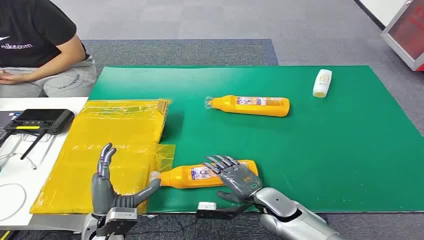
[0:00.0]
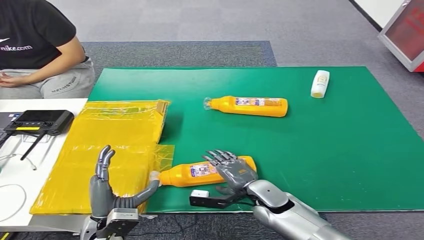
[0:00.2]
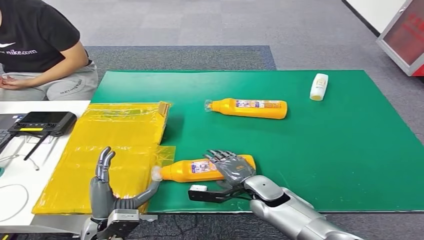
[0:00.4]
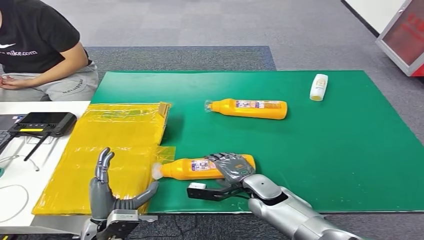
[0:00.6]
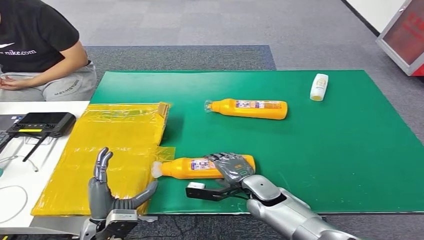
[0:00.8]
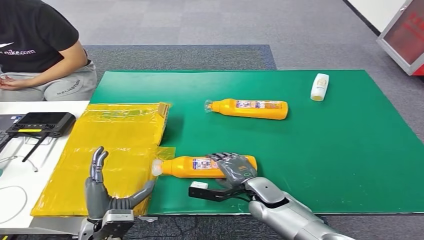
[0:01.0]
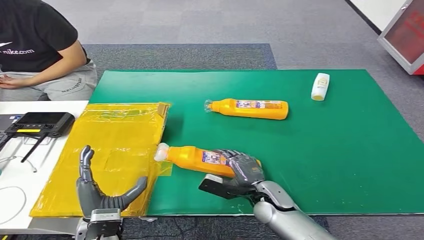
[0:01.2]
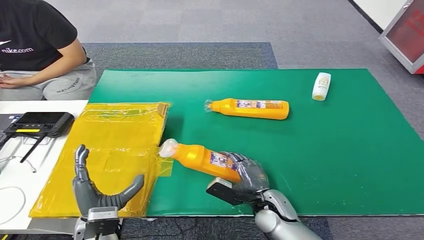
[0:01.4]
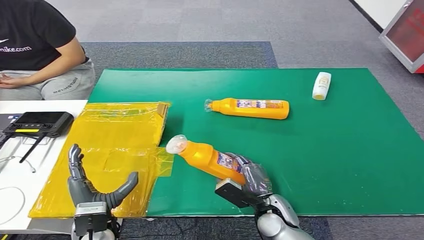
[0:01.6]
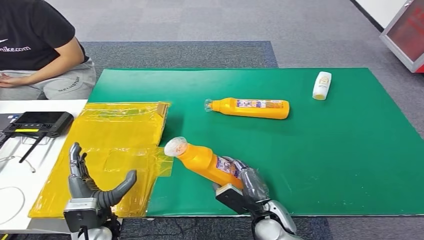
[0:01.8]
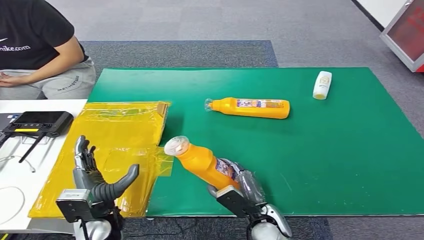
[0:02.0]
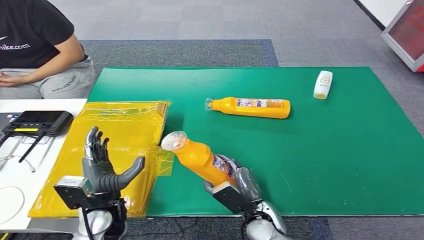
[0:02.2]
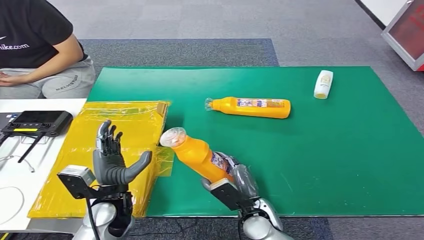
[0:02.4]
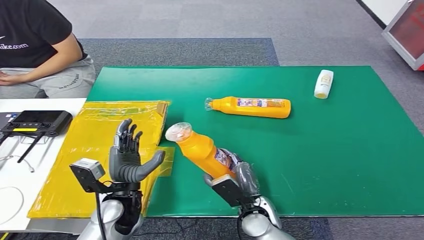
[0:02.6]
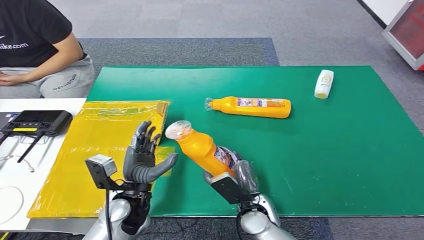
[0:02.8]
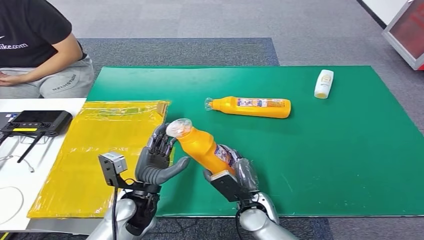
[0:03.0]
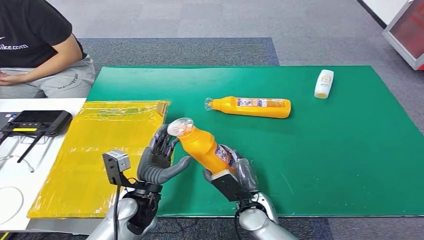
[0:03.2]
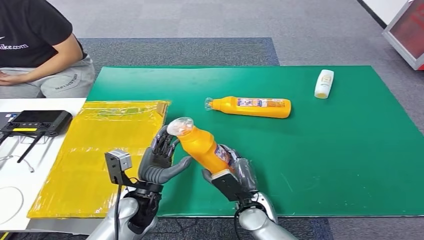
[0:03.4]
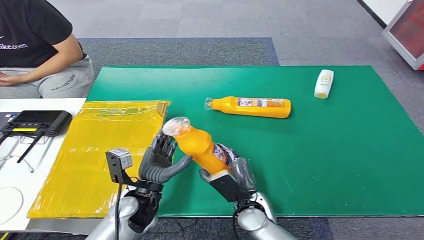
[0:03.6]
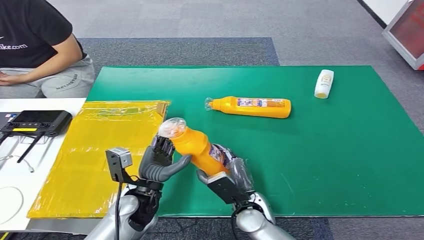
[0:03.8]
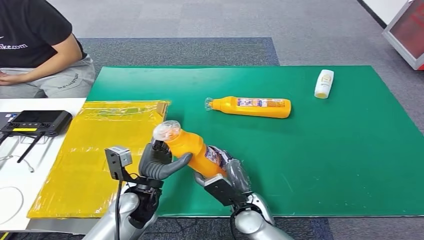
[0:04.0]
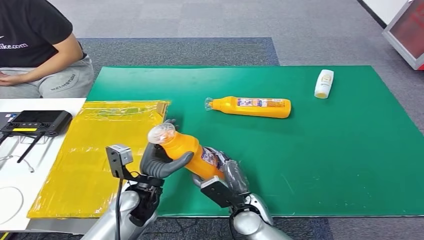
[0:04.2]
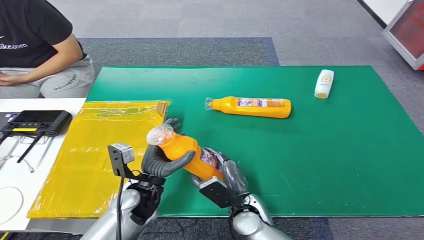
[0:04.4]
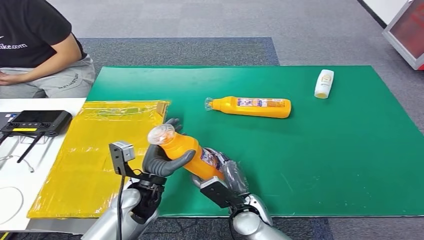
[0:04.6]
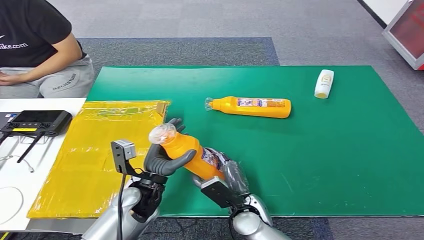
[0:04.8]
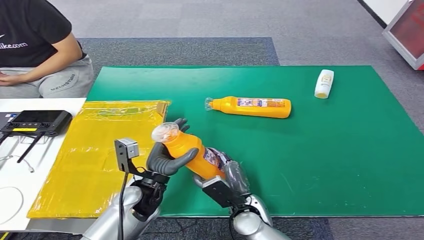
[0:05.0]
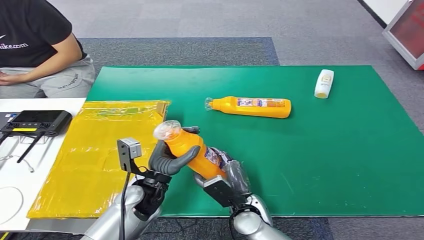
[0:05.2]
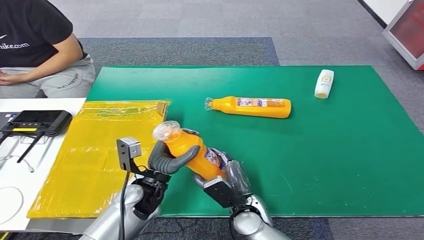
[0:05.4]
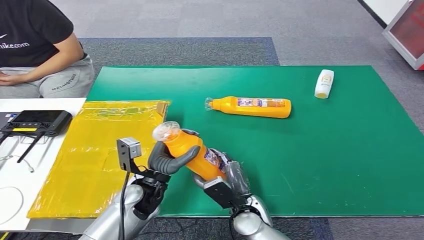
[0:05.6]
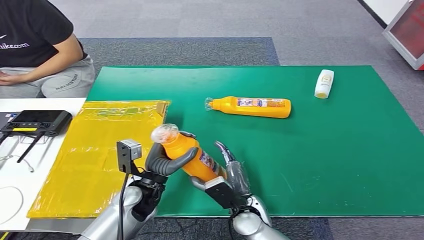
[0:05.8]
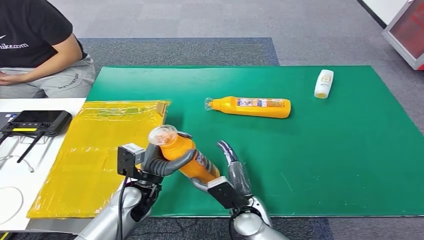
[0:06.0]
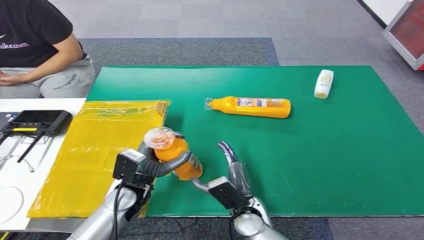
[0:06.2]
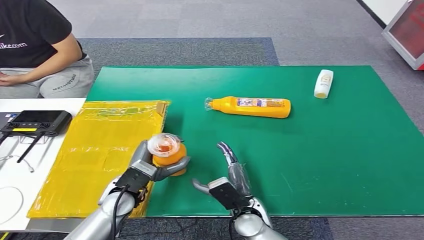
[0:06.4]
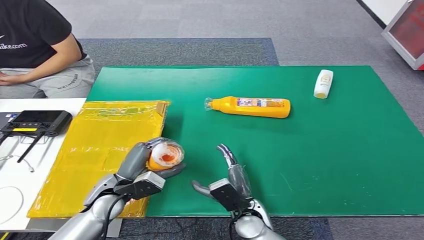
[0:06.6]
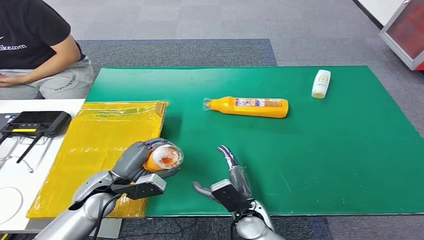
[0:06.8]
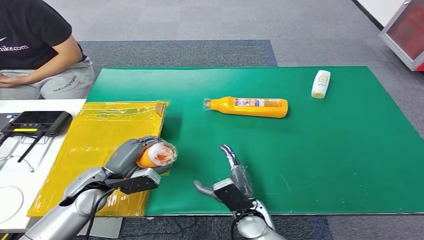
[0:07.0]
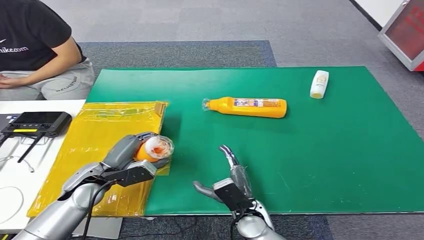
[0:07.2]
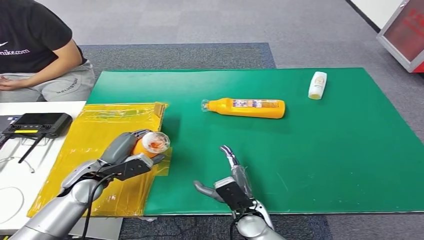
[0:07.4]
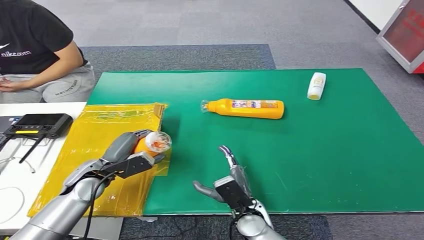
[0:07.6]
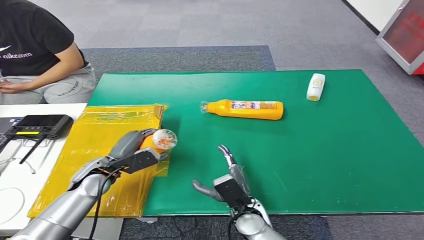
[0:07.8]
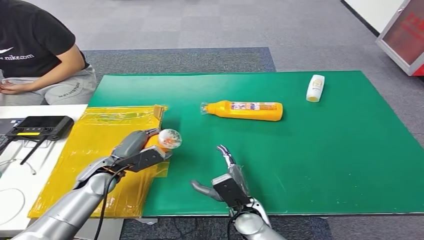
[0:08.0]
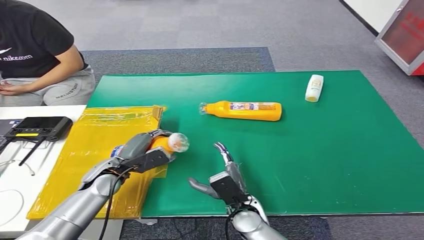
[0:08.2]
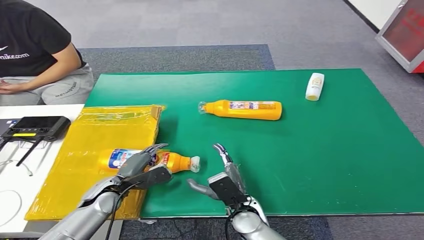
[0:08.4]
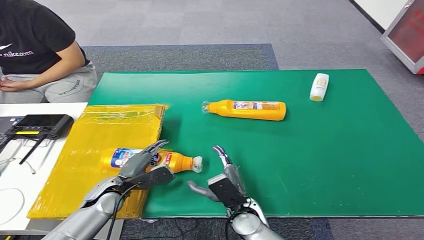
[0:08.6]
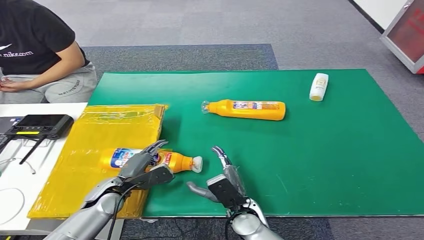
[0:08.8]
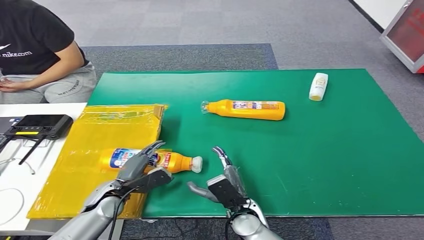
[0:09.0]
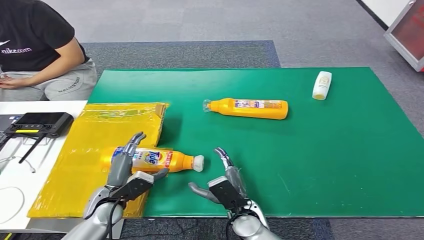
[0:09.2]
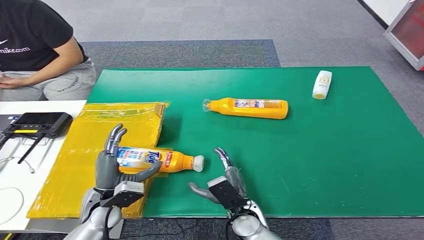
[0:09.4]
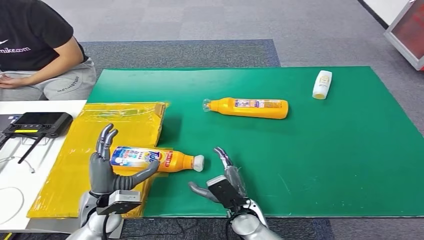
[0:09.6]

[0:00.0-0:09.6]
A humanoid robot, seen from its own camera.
Step, 0:00.0 to 0:01.8: Pick up the bottle from the table.
Step, 0:02.2 to 0:09.6: Turn the bottle to the front side.
0:03.2 to 0:04.8: The hands stay close to where they were, moving slightly.
